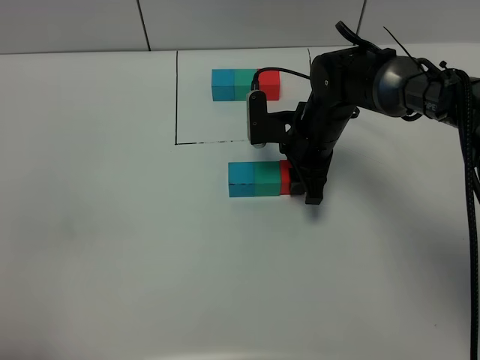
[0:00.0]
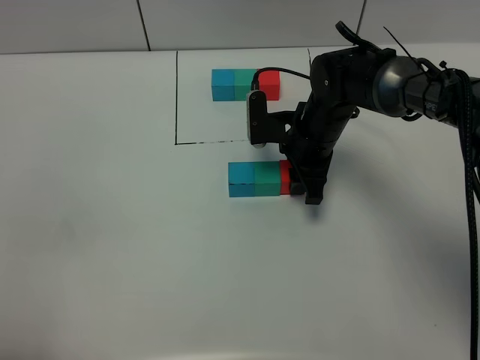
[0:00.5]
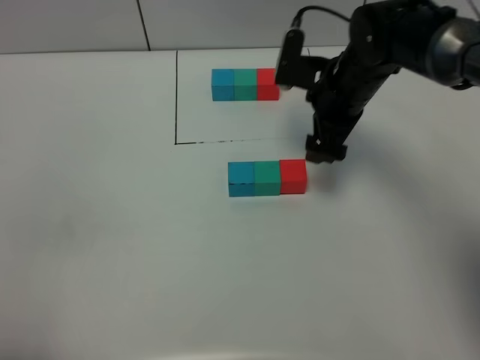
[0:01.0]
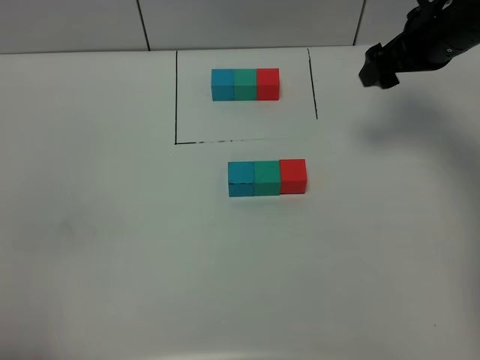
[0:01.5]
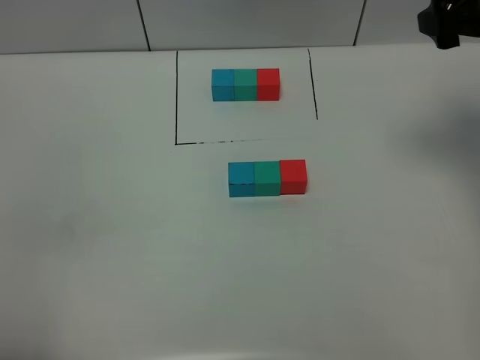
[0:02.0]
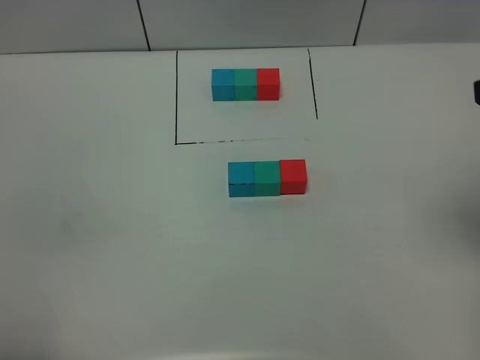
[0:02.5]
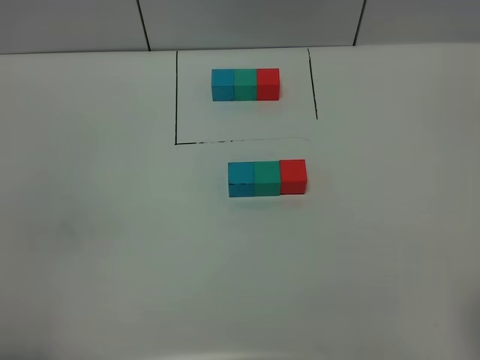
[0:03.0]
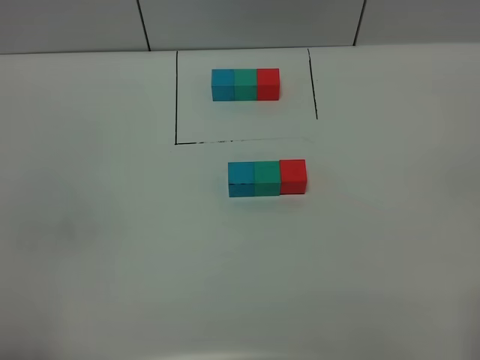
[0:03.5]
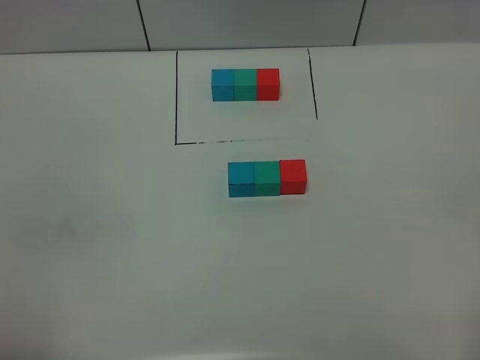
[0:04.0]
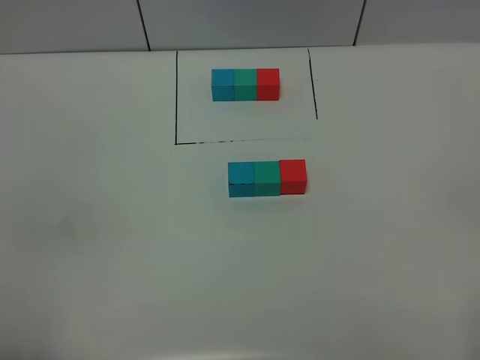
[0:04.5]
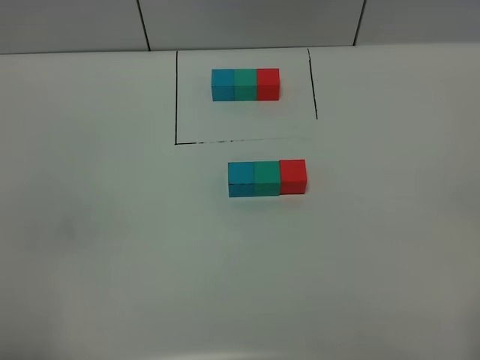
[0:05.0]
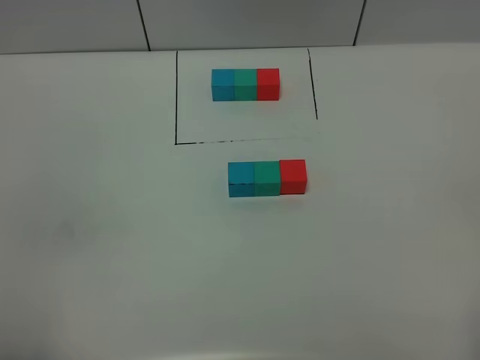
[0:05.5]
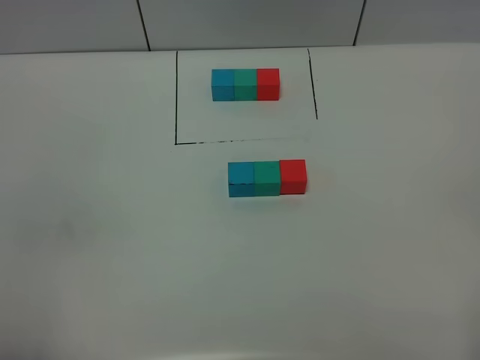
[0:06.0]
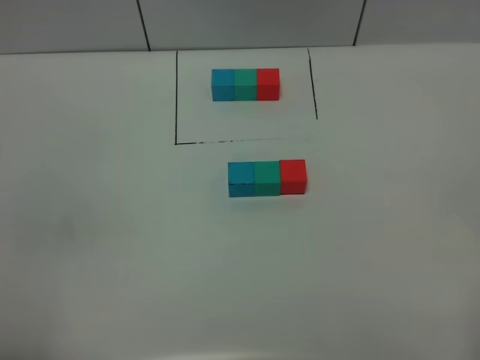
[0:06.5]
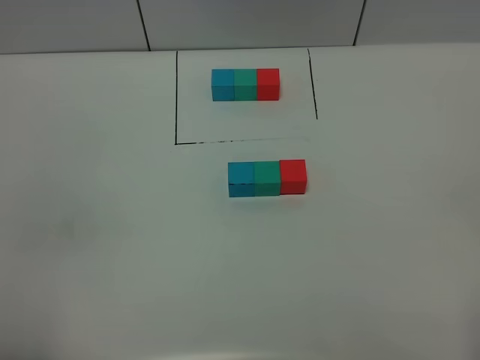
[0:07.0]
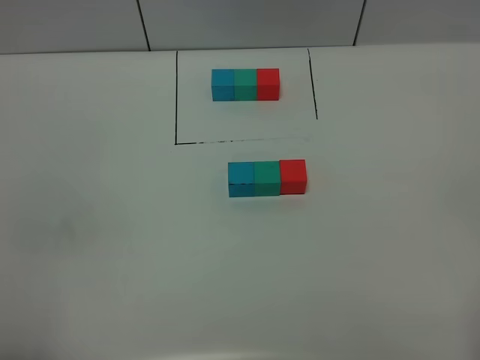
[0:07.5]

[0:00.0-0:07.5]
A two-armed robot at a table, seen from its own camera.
Task of the whole recording: According to the building block template in front, assemble the scattered blocks together.
0.0 to 2.0 s: The right gripper heads upward and to the right, covering some 30 cm, and opens its fingers.
2.0 to 4.0 s: The right gripper heads backward, covering roughly 35 cm.
4.0 to 7.5 s: Both grippers stay about where they are.

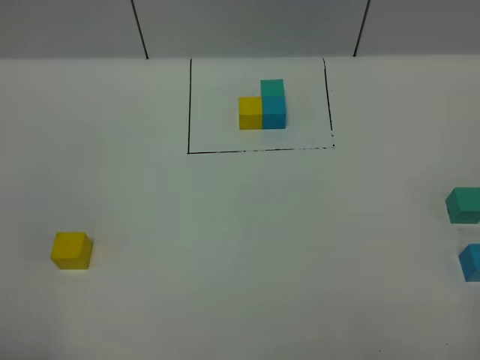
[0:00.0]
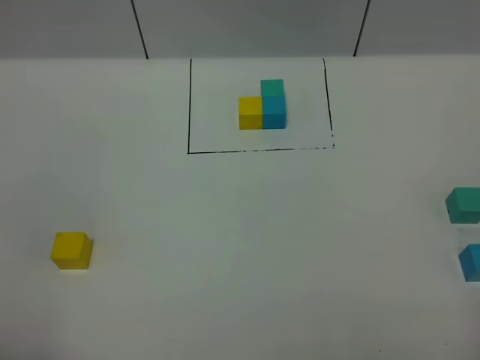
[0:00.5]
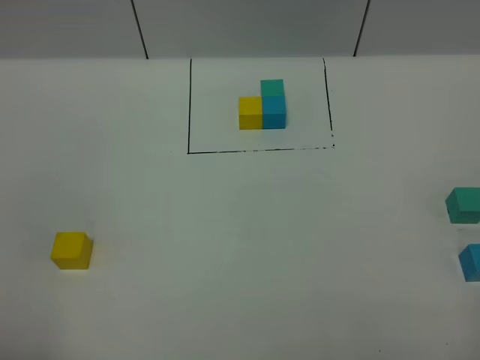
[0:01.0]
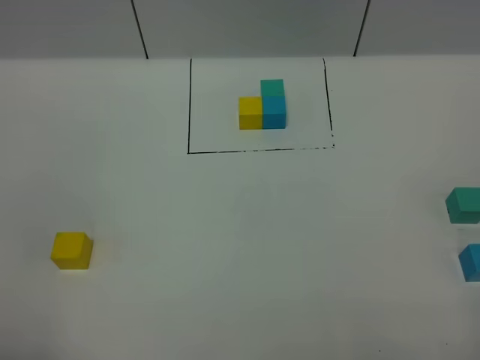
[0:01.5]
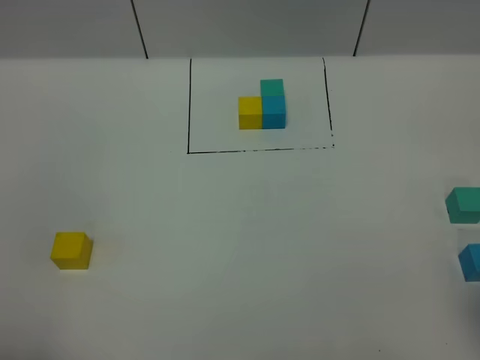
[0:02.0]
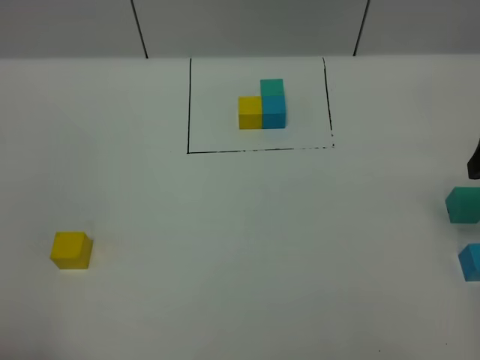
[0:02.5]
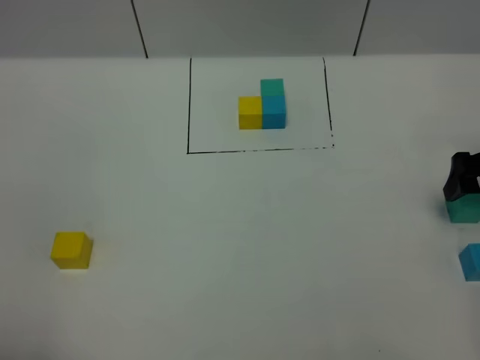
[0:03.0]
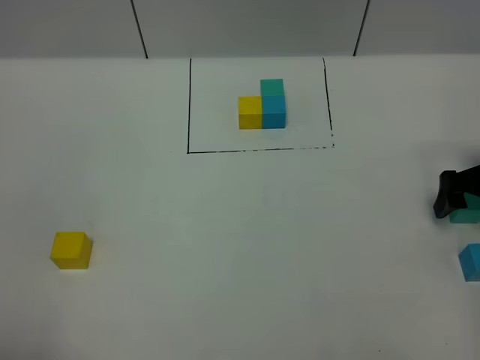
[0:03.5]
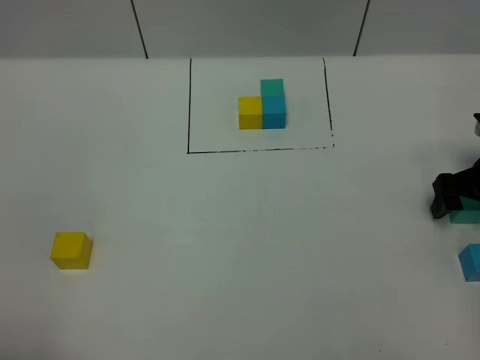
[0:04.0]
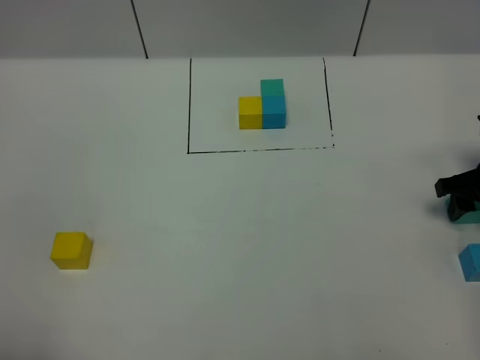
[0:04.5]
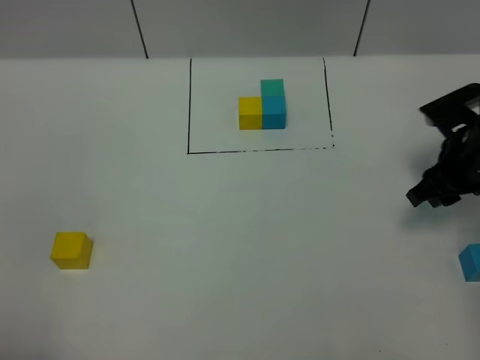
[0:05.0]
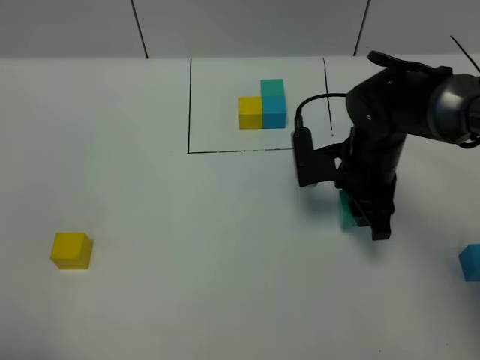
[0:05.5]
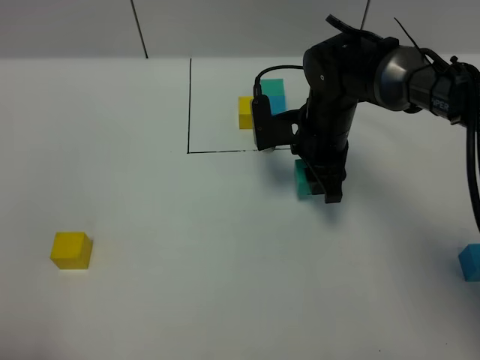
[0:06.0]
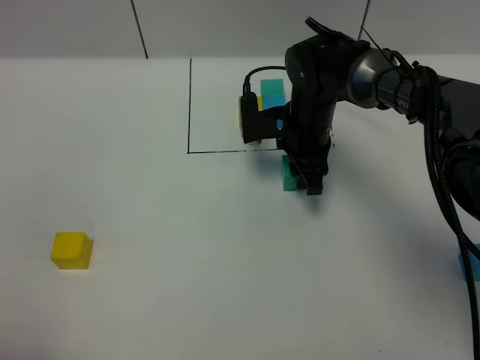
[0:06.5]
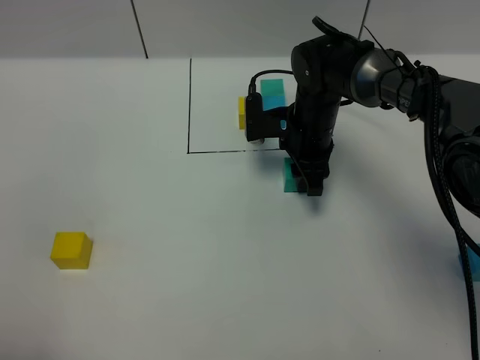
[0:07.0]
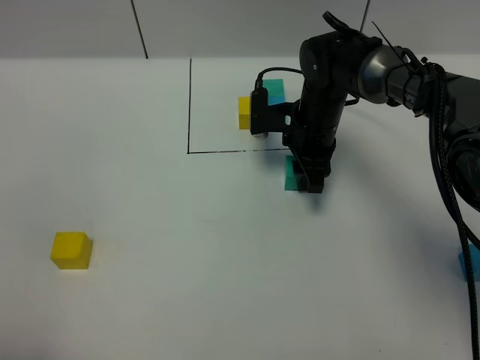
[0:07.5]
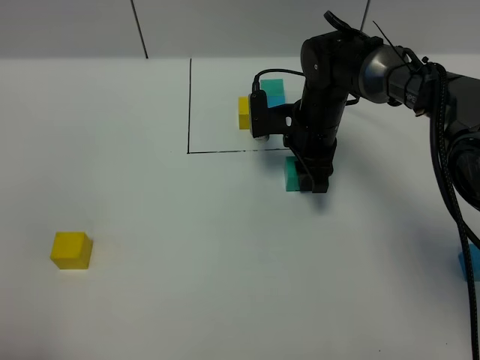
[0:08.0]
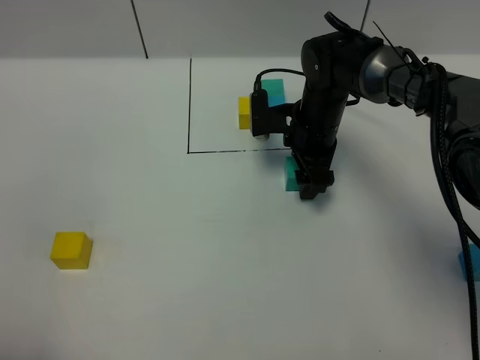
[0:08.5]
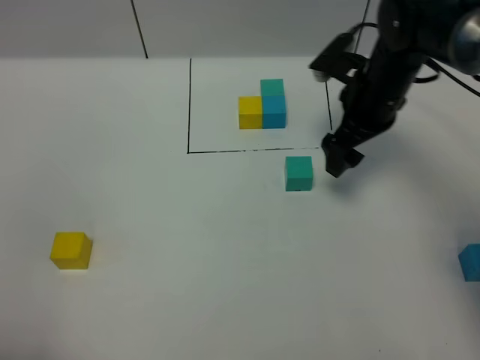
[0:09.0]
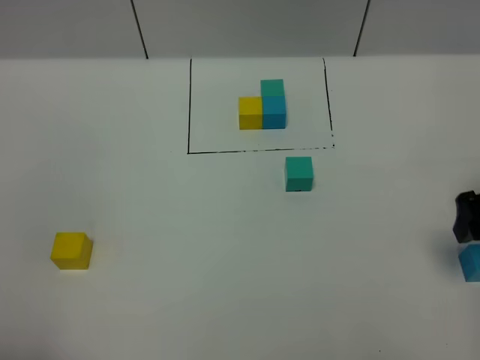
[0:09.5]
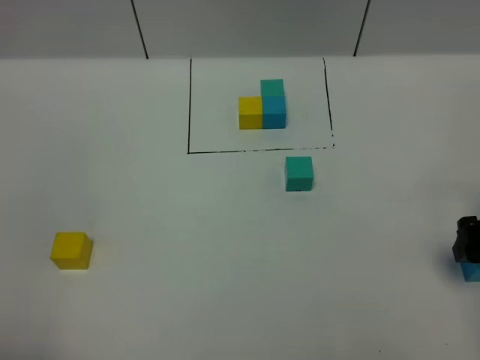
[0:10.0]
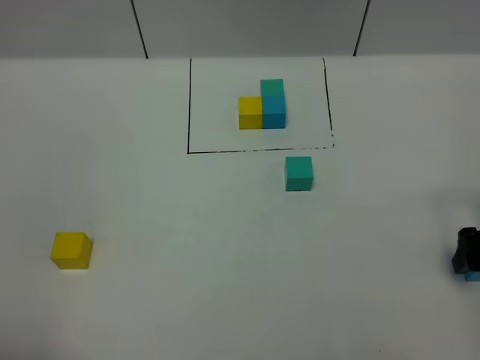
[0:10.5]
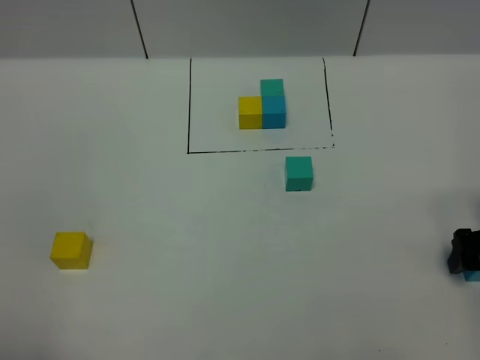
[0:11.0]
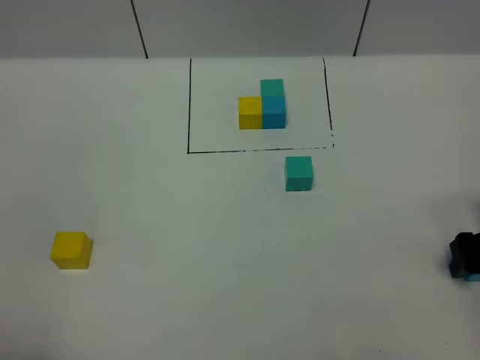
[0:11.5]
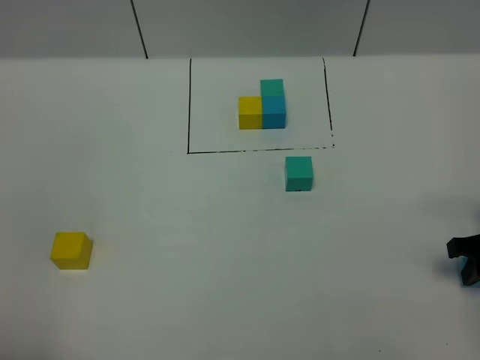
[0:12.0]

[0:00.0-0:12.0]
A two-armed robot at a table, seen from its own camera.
Task of the whole recording: According to the building block template in front, assemble the scattered blocks together.
Step, 0.0 to 8.0 s: Put the green build block in the center of the table.
2.0 to 4.0 s: The right gripper shifts some 30 cm forward and downward.
4.0 to 6.0 s: The right gripper is displaced to the left by roughly 25 cm, and closes up.
6.0 to 8.0 s: The grippers stay close to where they were, moving slightly.
8.0 to 10.0 s: The right gripper goes some 30 cm to the right and backward, and opens up.
10.0 to 12.0 s: The right gripper closes its fingers.

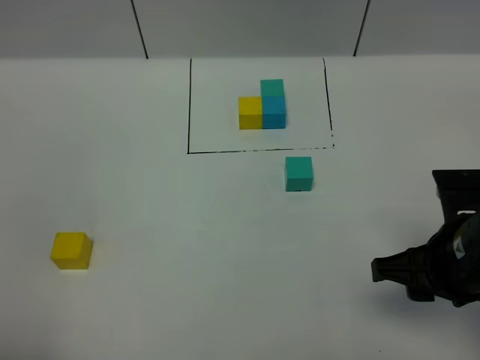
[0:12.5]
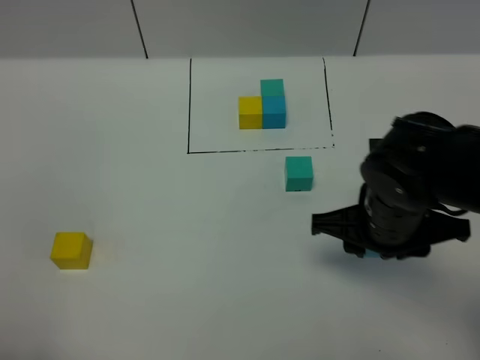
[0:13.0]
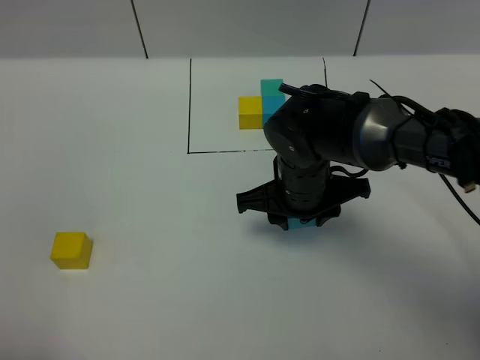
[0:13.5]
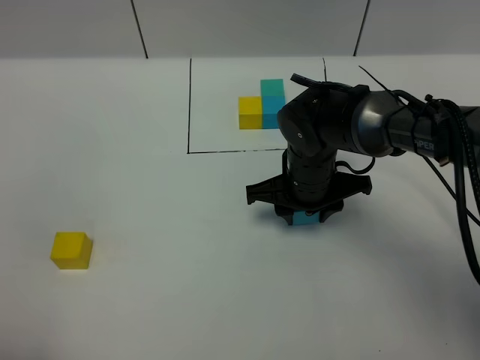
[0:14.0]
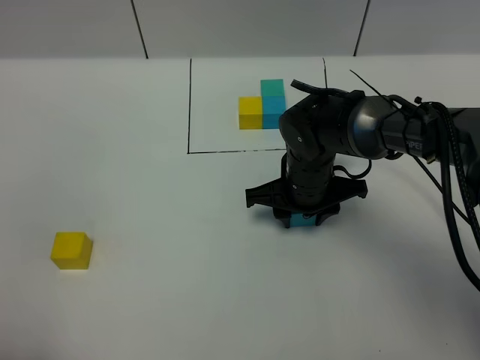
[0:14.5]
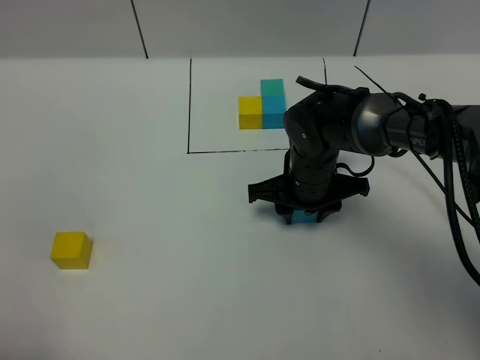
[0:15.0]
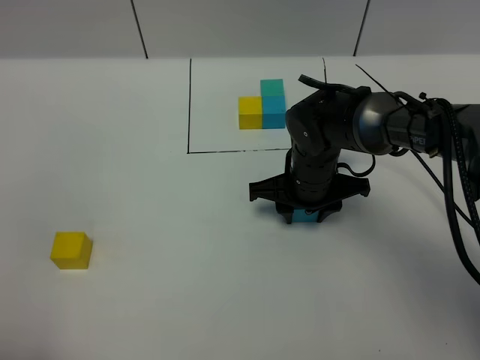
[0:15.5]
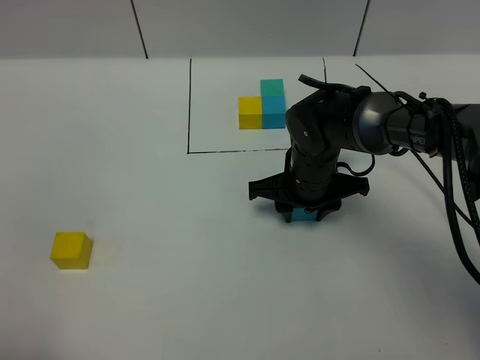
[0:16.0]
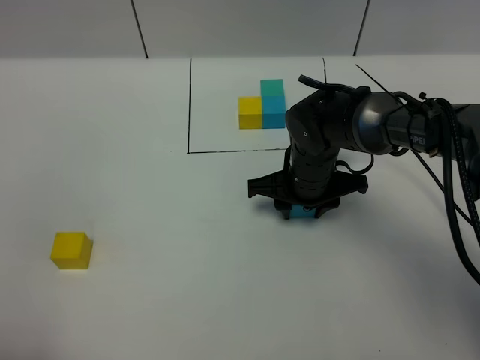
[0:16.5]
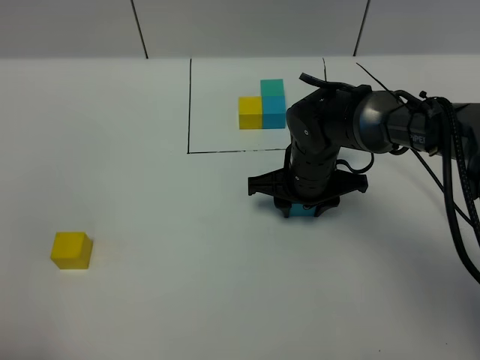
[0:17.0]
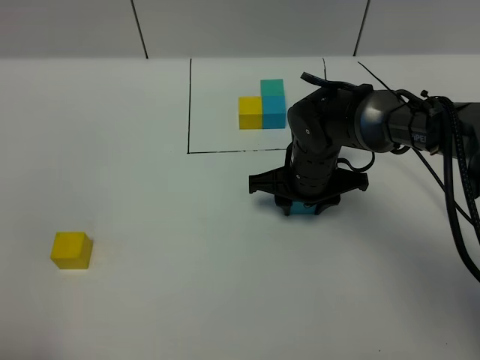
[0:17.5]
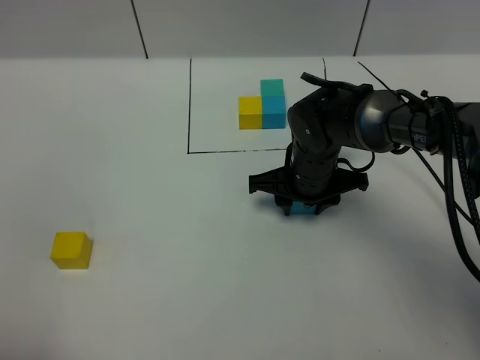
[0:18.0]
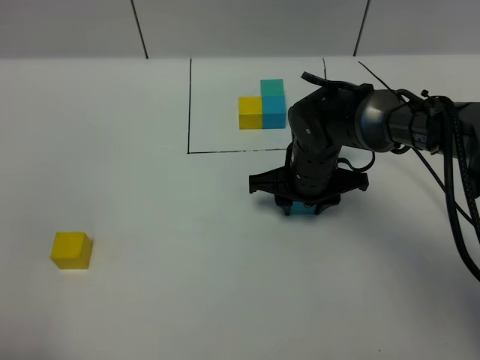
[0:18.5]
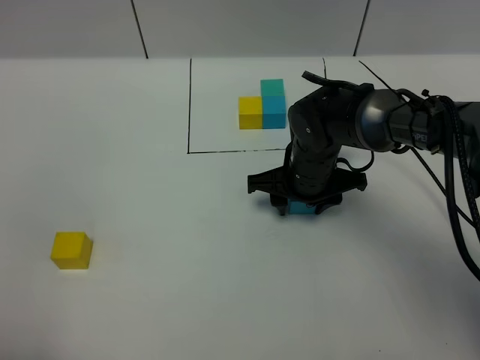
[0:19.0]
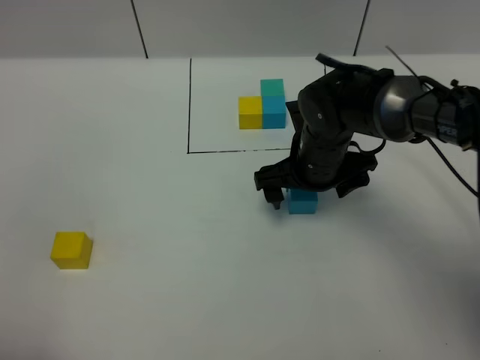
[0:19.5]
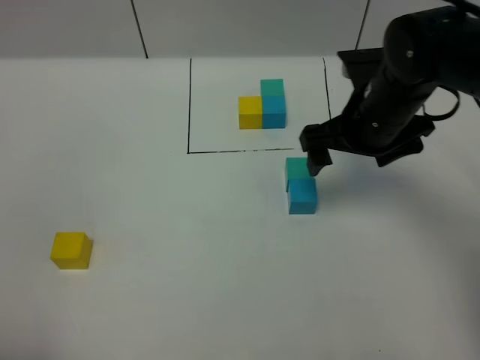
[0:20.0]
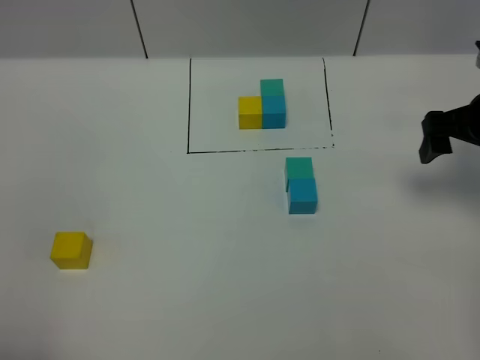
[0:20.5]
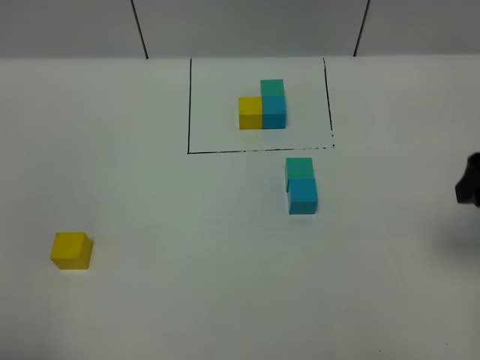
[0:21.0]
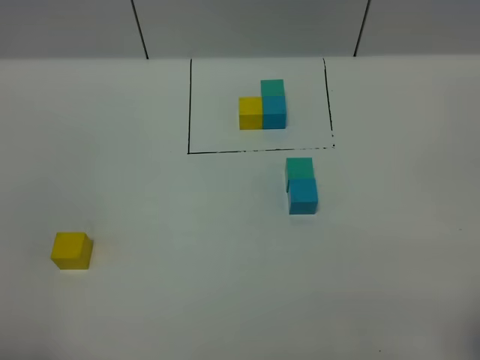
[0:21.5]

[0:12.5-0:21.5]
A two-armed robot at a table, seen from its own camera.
Task of the whole recording: According to the building block template in front, assemble the scattered blocks together.
Step, 12.5 to 19.0 s: Put the blue build block on the behind of the green build block.
12.5 to 14.5 s: The right gripper moves forward, to the left and downward, about 25 cm.
14.5 to 17.0 s: There are only small adjustments of the grippers.
17.0 to 19.5 s: The right gripper opens its fingers.
19.5 to 21.5 s: The right gripper is displaced backward, to the right and upward by about 35 cm.
